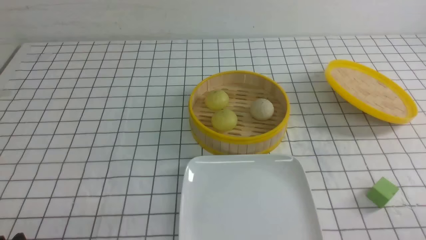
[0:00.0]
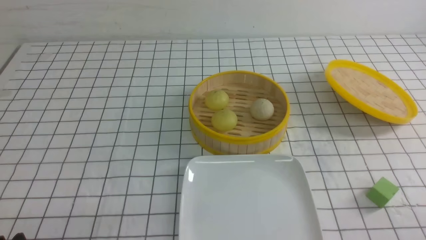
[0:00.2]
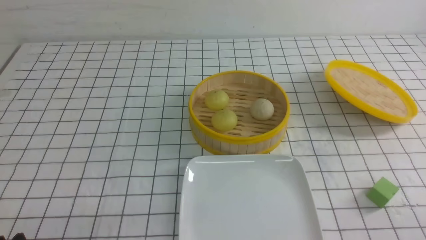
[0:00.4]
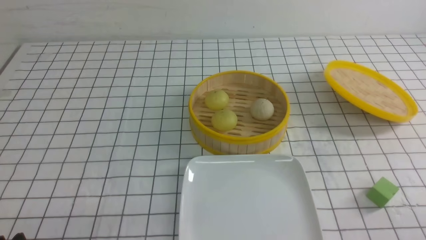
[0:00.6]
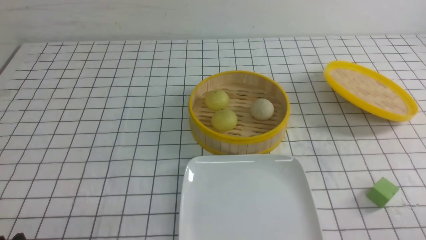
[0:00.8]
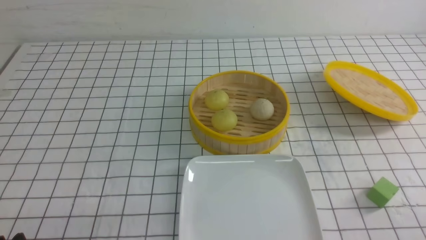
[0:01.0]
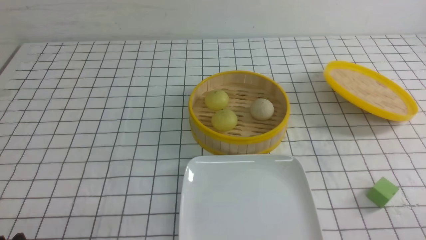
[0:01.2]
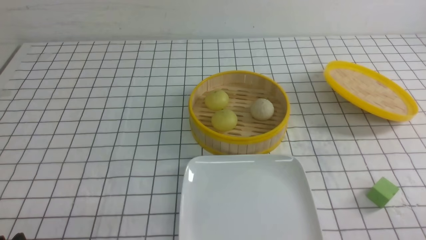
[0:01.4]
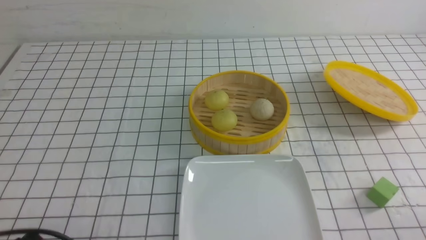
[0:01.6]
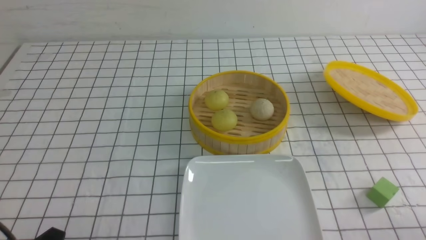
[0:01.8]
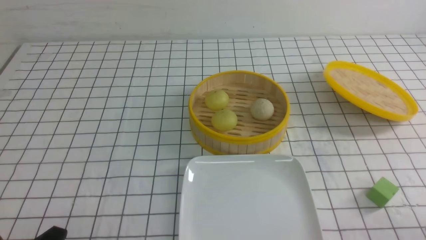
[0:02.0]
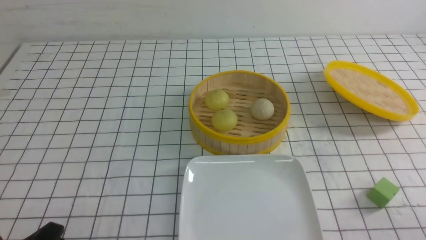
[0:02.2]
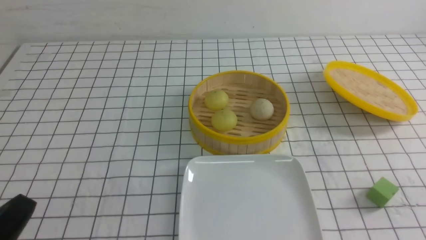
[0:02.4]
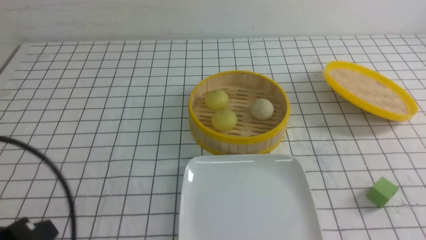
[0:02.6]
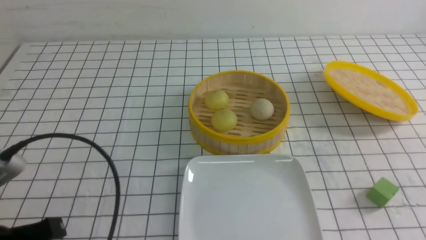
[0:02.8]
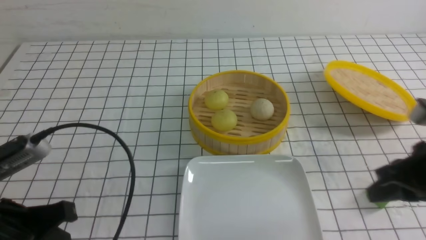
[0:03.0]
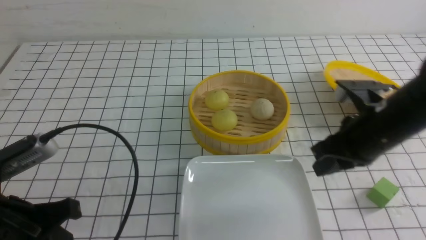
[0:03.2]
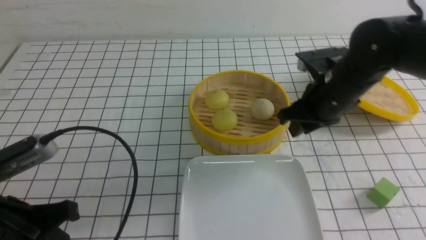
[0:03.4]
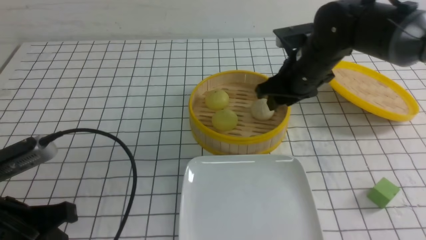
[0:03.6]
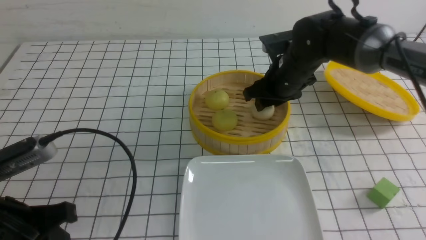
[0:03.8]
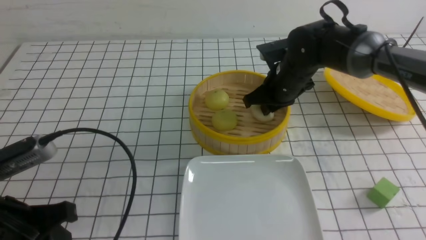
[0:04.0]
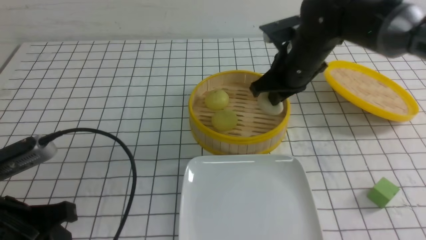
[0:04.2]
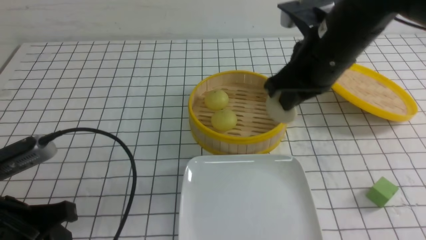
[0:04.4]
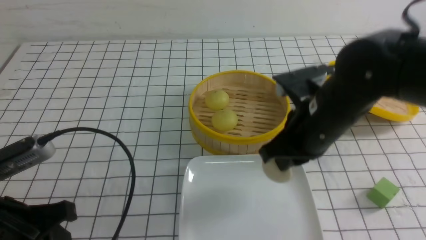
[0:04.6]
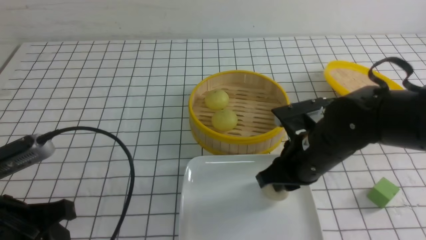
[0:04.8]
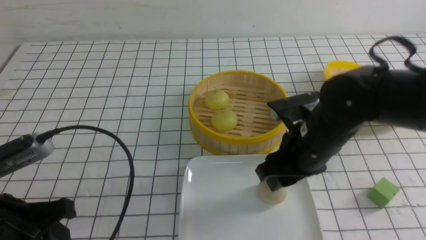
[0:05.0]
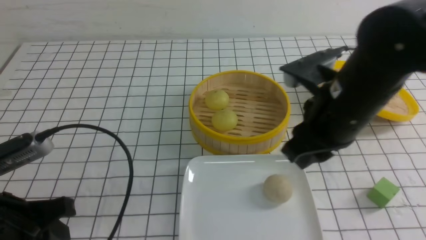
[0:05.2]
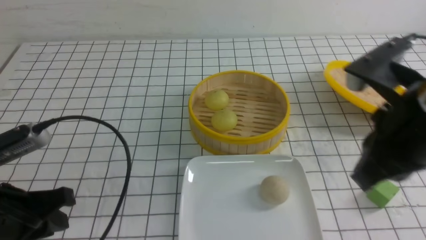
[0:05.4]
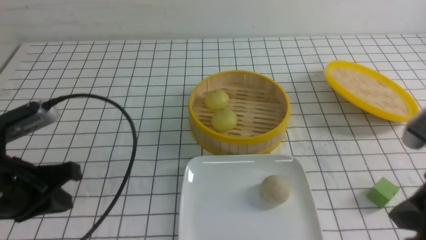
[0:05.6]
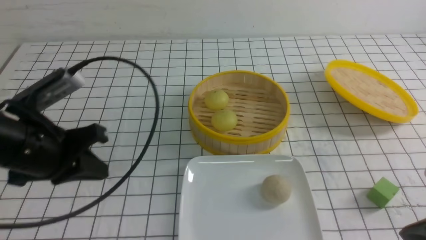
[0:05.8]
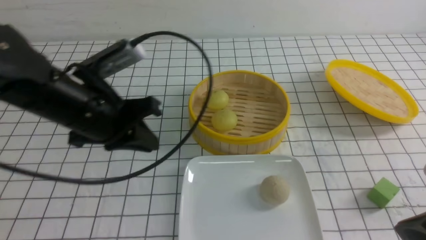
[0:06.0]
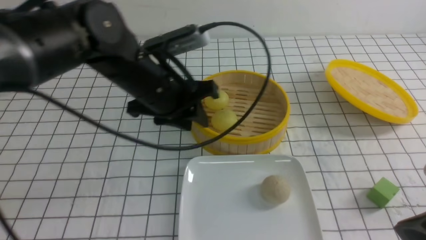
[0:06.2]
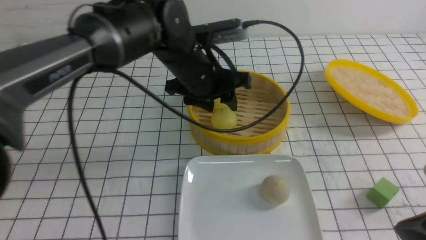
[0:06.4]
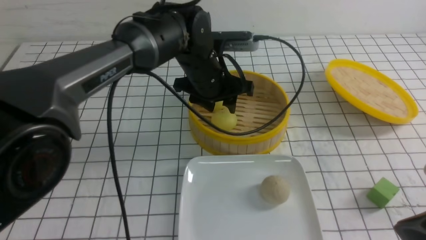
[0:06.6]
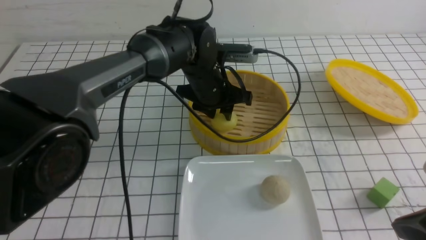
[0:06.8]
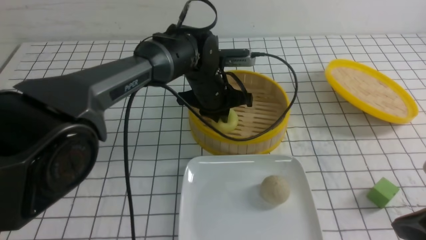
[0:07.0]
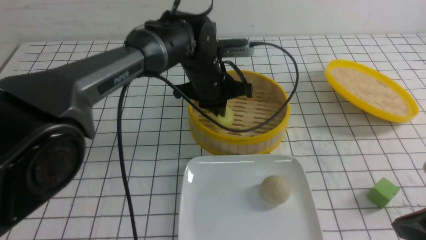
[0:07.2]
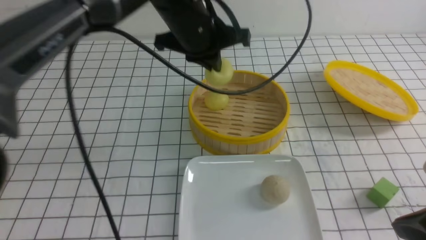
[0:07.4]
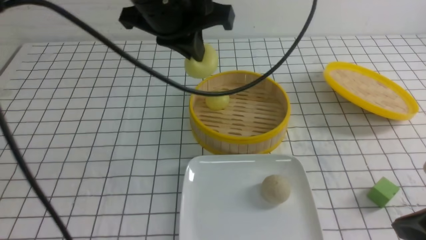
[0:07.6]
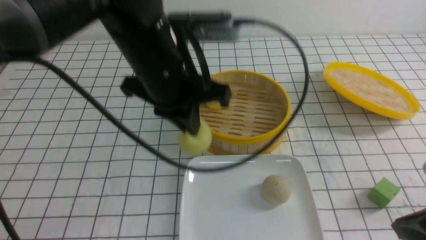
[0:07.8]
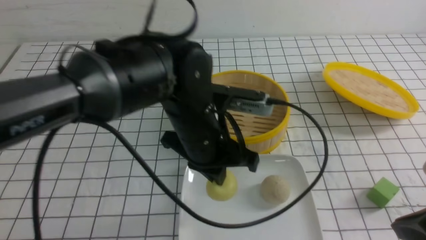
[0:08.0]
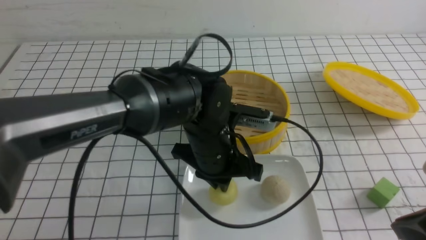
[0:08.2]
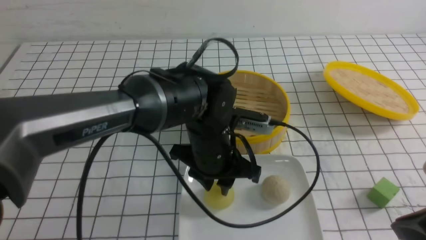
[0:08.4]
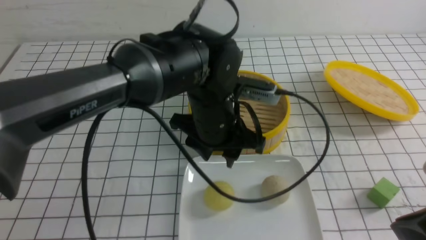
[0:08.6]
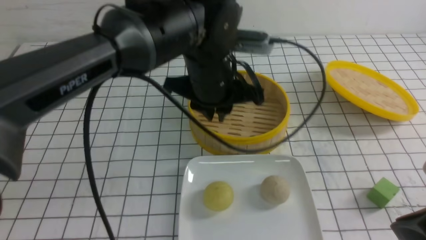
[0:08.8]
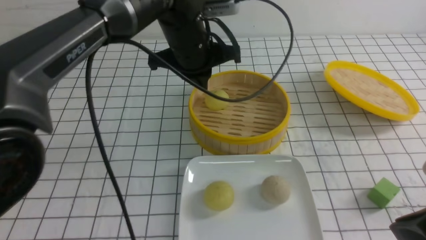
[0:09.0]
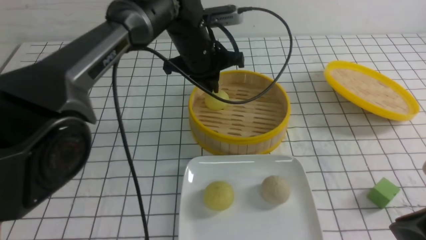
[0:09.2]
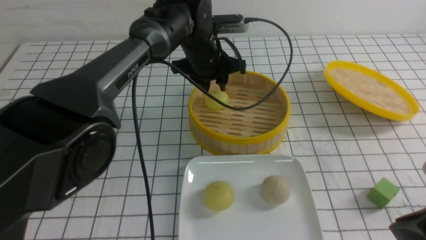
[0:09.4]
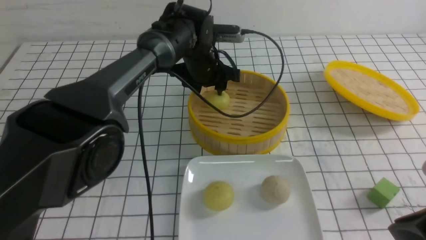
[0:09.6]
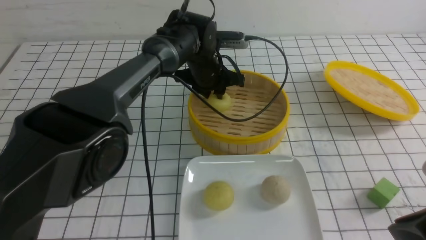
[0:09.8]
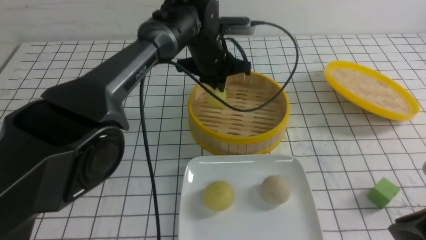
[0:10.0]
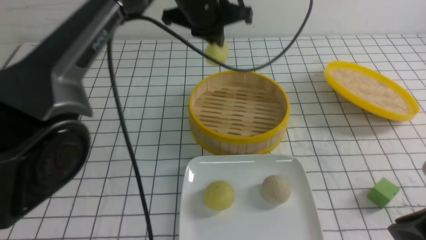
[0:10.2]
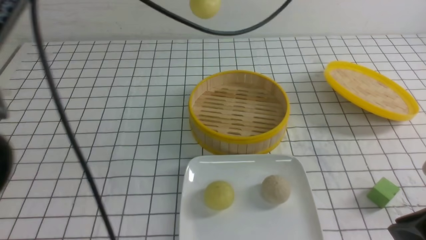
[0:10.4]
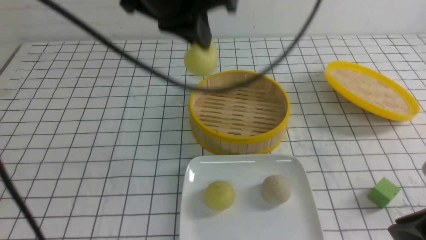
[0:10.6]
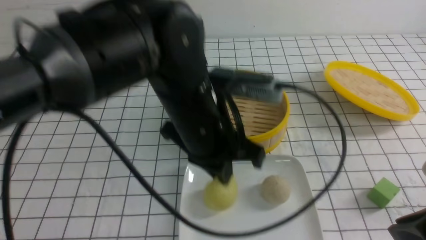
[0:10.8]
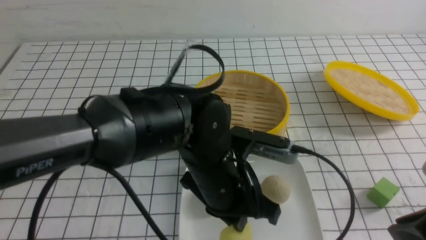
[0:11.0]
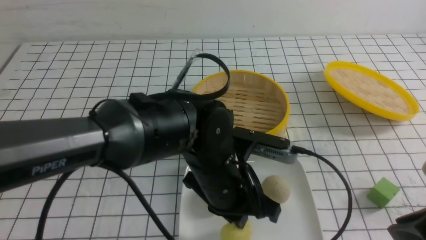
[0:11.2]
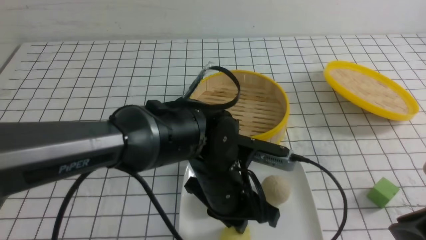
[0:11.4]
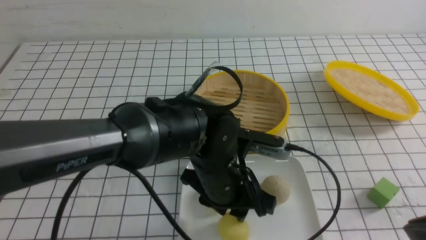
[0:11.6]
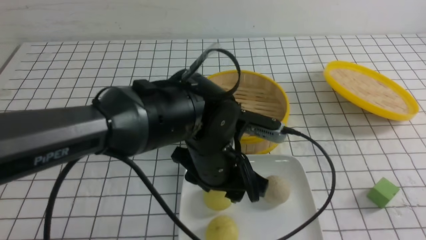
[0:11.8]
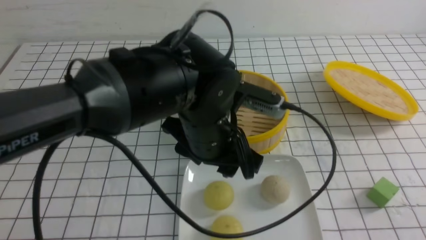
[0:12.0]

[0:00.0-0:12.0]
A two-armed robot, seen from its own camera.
Step, 0:00.0 to 0:04.0: use the right arm to grab the steamed stuffed bun that is closest to it.
Step, 0:04.2 to 0:04.8: use the right arm to put the steamed stuffed bun into the plate.
Step, 0:05.2 to 0:06.8: use the left arm to grab the steamed stuffed bun that is closest to it.
Step, 0:07.0 to 0:08.2: use the left arm to put the steamed stuffed bun into the plate.
Step, 0:08.4 to 0:09.8: use the left arm to grab the steamed stuffed bun that is closest to it.
Step, 0:10.0 to 0:11.6: use the left arm to put the steamed stuffed bun into the plate.
0:01.6 to 0:03.0: The right gripper heads forward and upward, covering some 20 cm, and closes up, while the left gripper moves upward and forward, roughly 10 cm, and closes its fingers.
0:03.0 to 0:04.4: The right gripper travels to the left and forward by approximately 15 cm, and opens and closes again; the left gripper opens.
0:04.4 to 0:06.0: The left gripper heads forward and to the right, covering roughly 15 cm. The right gripper goes approximately 25 cm backward and to the right, and opens, then closes once more.
0:06.0 to 0:07.6: The left gripper shifts some 15 cm to the right and upward, and opens, then closes again.
0:07.6 to 0:09.0: The left gripper is displaced forward and downward by some 10 cm, and opens and closes again.
0:09.0 to 0:10.4: The left gripper shifts approximately 15 cm upward, and opens and closes again.
0:10.4 to 0:12.0: The left gripper is displaced downward and backward by roughly 20 cm, and opens its fingers; the right gripper heads backward and to the right, covering roughly 10 cm, and closes its fingers.

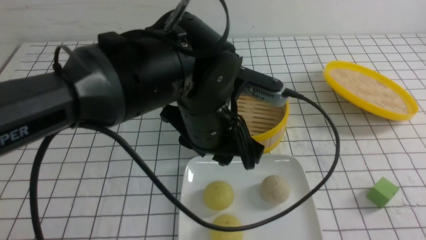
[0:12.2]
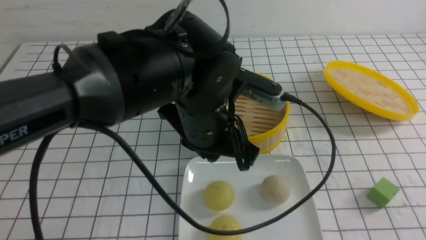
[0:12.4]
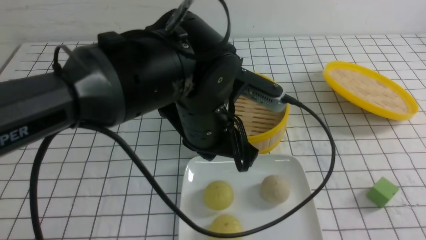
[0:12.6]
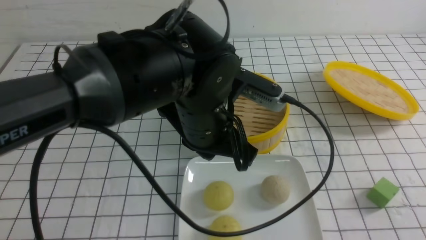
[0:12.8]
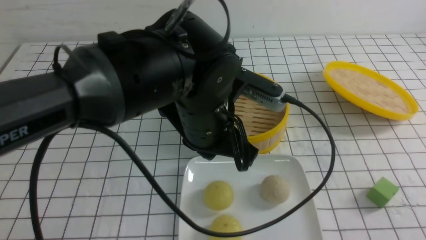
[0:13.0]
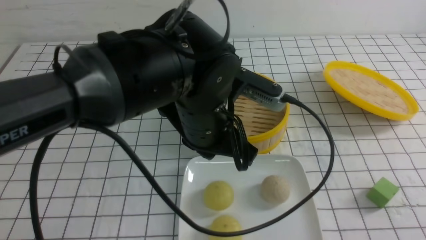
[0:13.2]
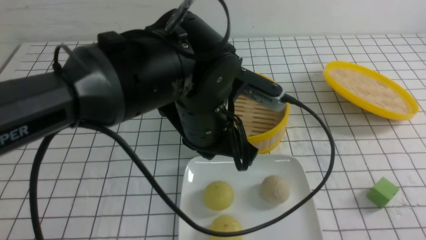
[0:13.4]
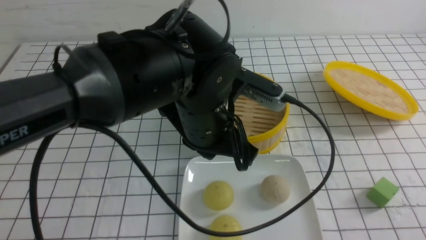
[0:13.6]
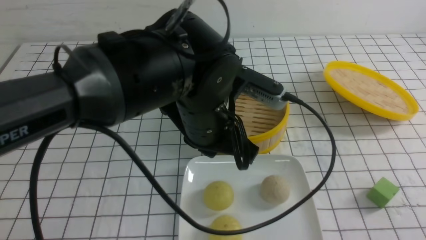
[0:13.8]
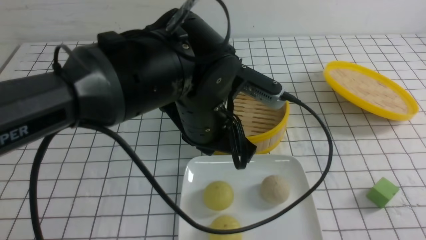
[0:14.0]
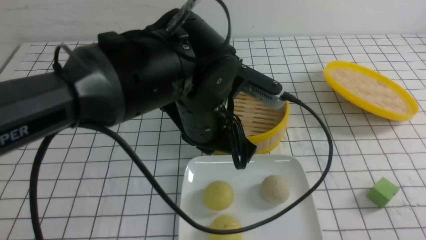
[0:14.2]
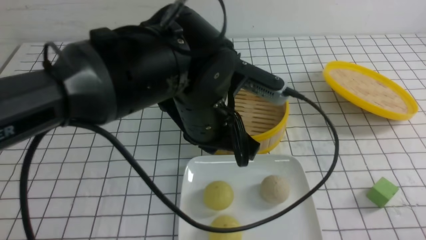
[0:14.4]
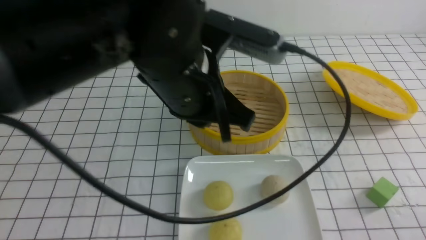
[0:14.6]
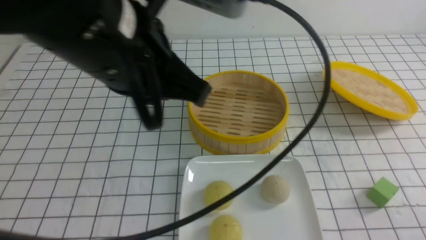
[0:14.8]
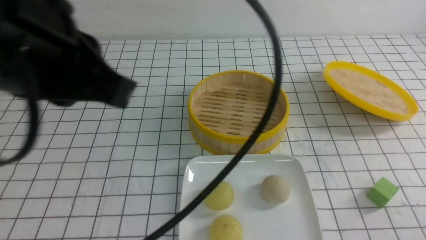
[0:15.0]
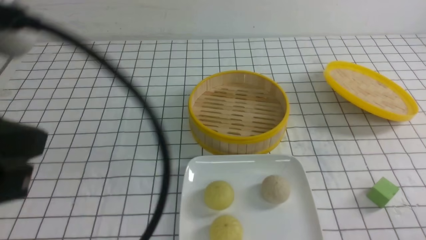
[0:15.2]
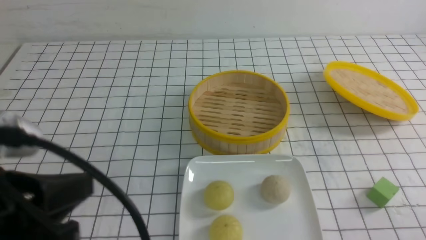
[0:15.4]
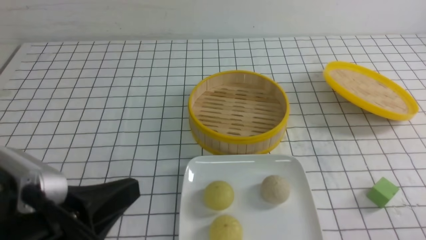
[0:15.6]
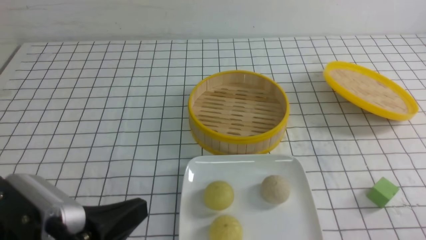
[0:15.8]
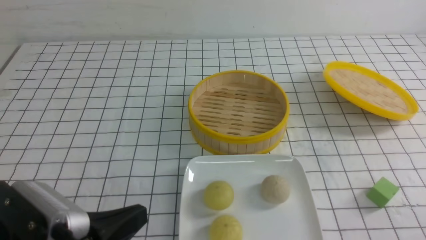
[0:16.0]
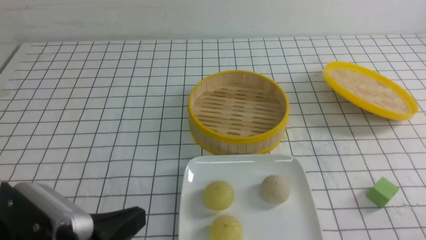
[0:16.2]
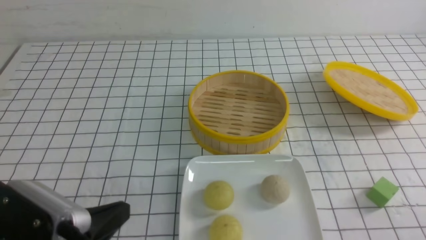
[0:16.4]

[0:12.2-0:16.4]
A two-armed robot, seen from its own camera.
0:12.2 to 0:13.6: The left gripper closes its fingers.
0:13.6 to 0:15.0: The right gripper goes about 10 cm downward; the left gripper moves upward, to the left and backward, some 25 cm.
0:15.0 to 0:16.4: The left gripper moves downward, about 20 cm.
